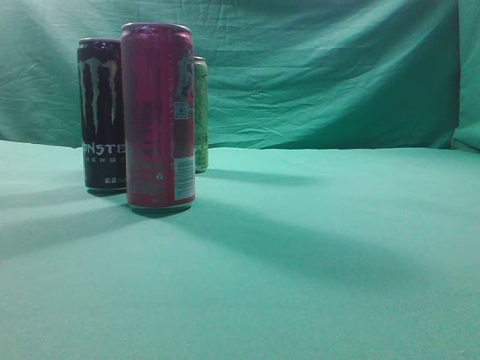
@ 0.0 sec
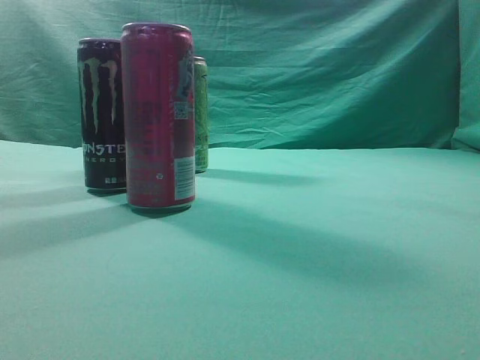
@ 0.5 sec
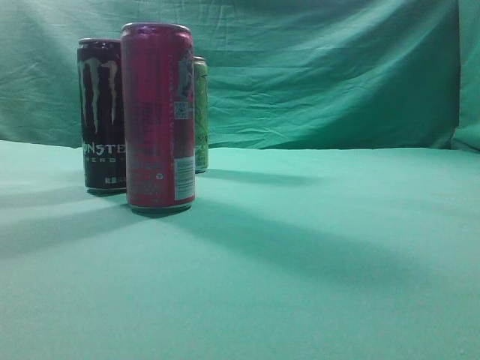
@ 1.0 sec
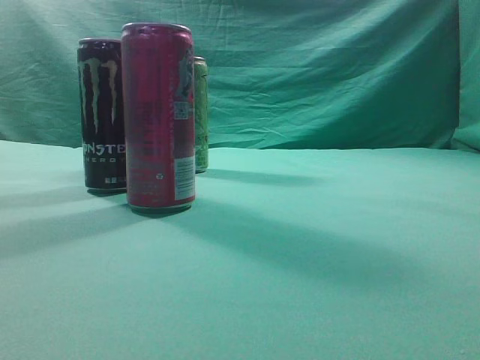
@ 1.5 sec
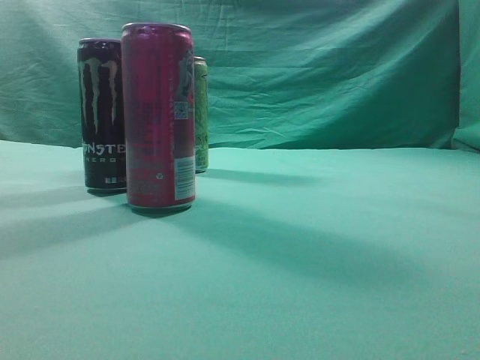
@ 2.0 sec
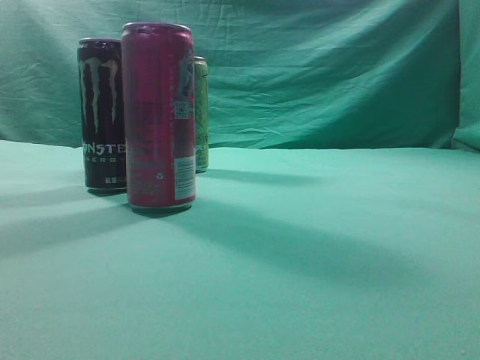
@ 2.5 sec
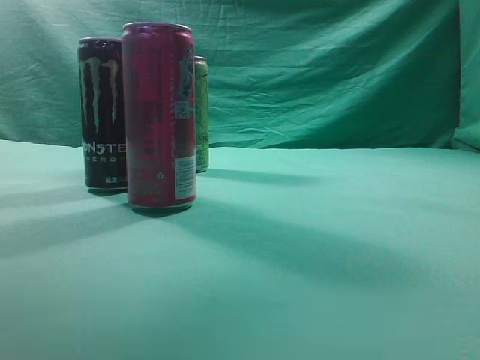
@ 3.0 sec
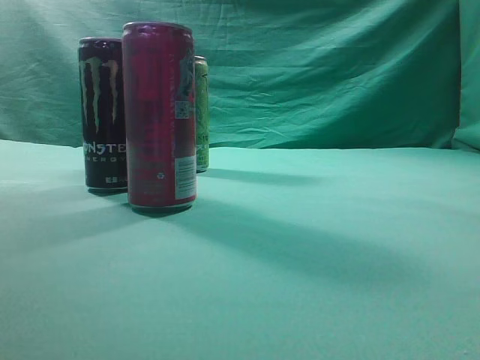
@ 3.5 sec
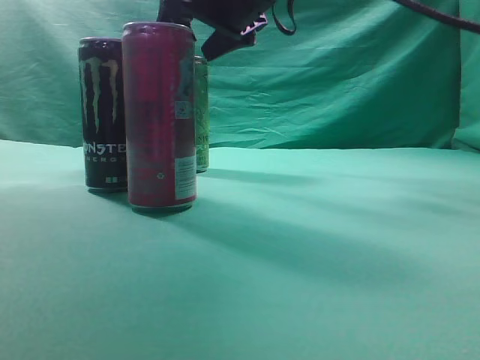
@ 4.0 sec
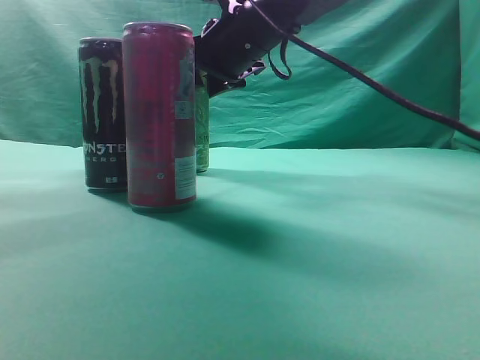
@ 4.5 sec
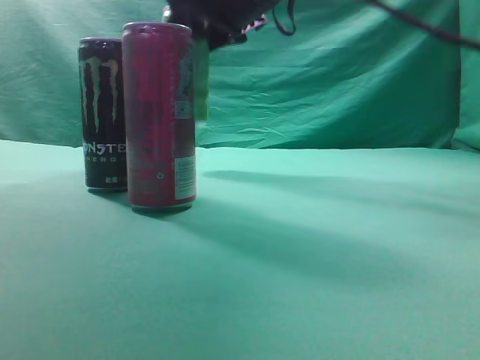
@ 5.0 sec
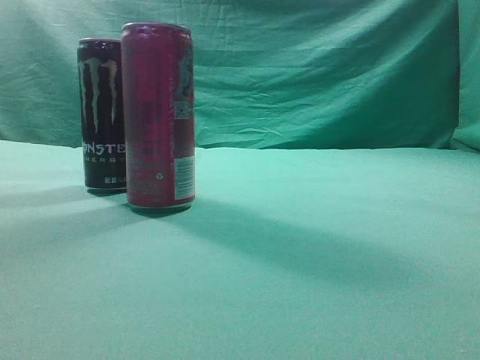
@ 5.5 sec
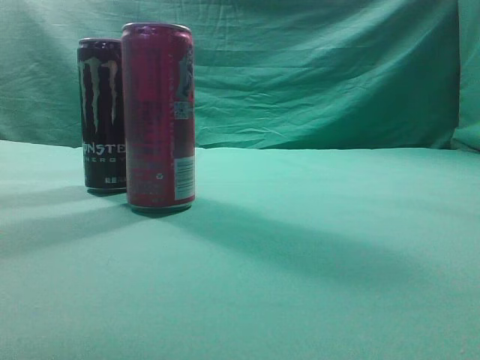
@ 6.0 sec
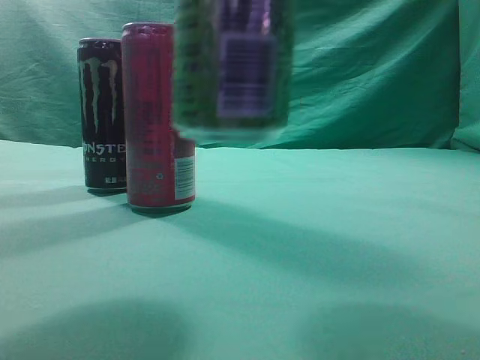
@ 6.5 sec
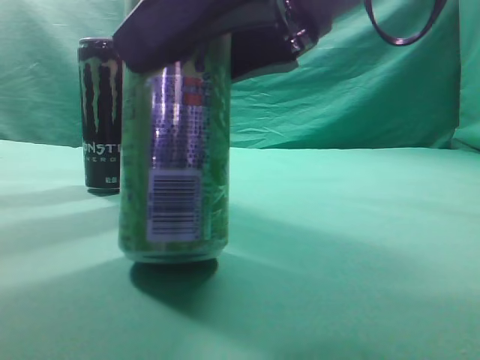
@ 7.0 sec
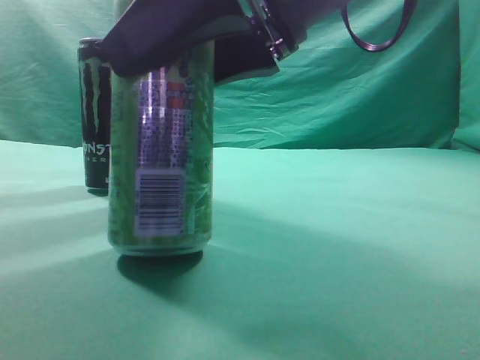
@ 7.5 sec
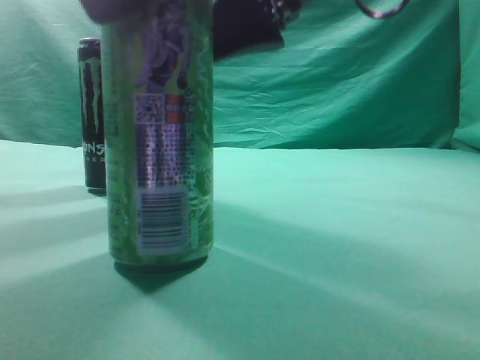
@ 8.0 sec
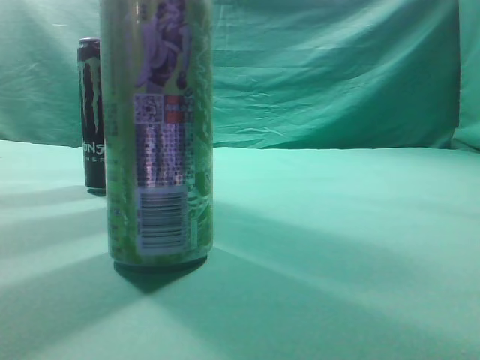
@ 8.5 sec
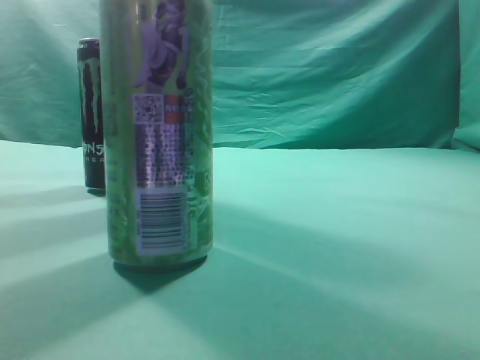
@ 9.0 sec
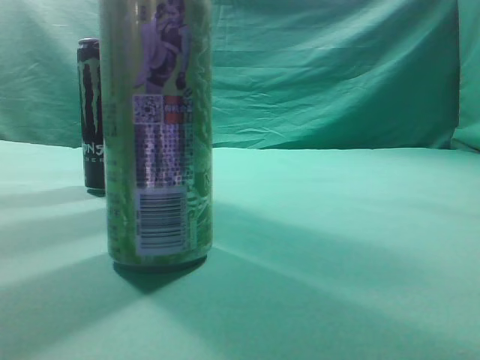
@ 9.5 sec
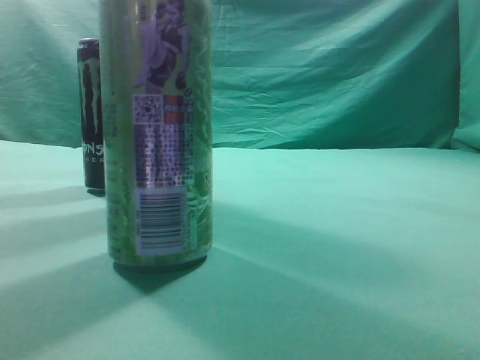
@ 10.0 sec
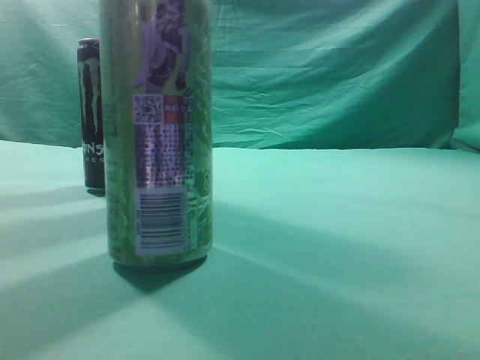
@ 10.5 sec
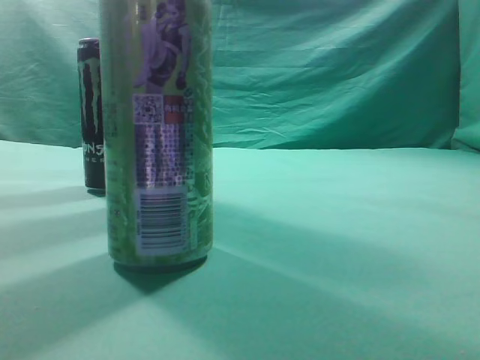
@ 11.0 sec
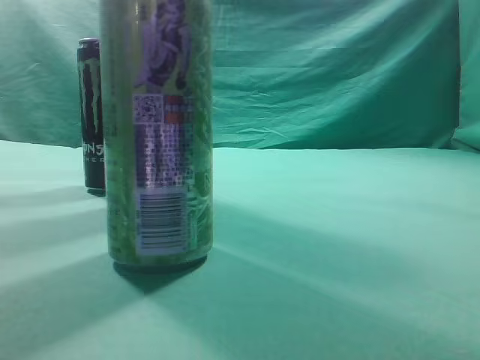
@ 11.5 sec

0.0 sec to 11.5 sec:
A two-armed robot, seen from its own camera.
Task of the whole recording: move one drink among three beverages.
Step, 0.0 sec to 4.5 sec: Grasp the beverage bottle placed at the back of the desk.
Step, 5.0 sec to 8.0 sec: Place the beverage bottle to the front of the table.
2.0 sec to 4.0 sec: The right gripper shifts about 50 cm forward and to the left, and opens.
4.0 sec to 6.0 sec: The right gripper shifts about 30 cm backward, upward and to the right.
6.0 sec to 7.5 sec: The right gripper travels downward and to the left by about 20 cm.
7.5 sec to 9.5 sec: The right gripper moves to the right, upward and backward, about 30 cm, and closes.
